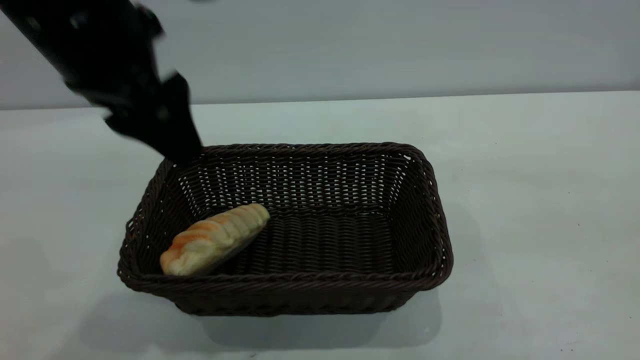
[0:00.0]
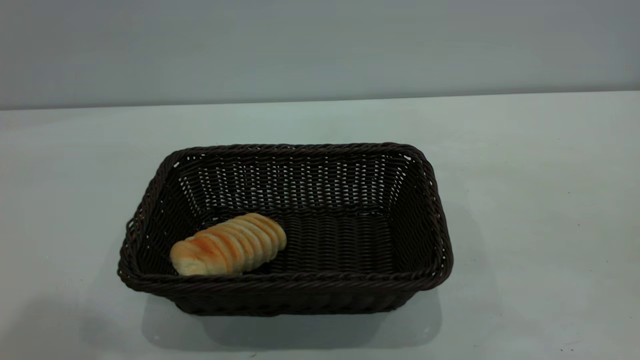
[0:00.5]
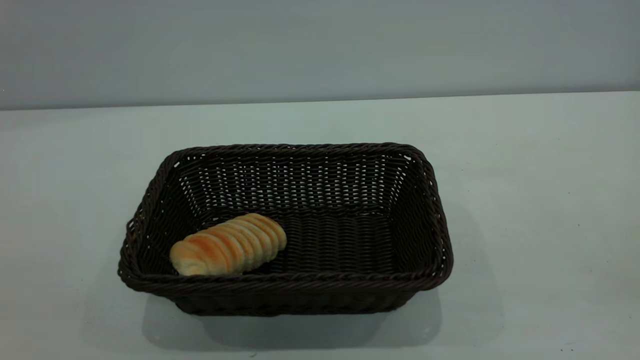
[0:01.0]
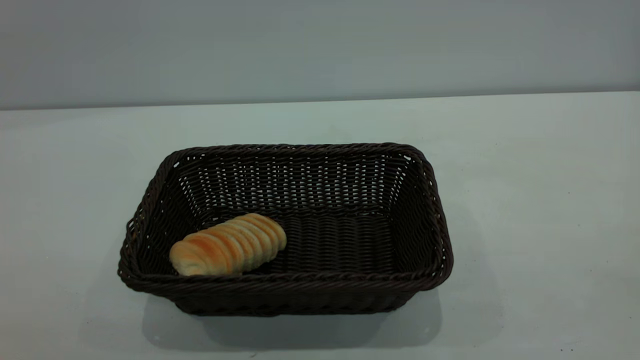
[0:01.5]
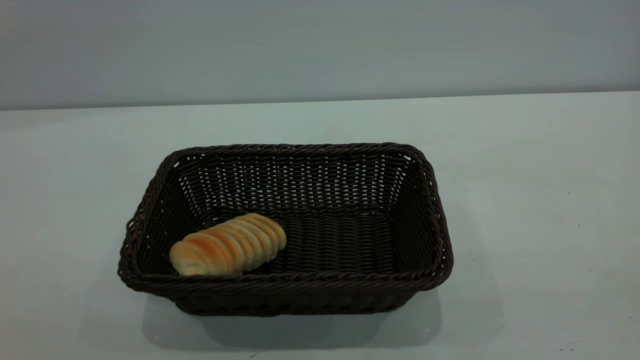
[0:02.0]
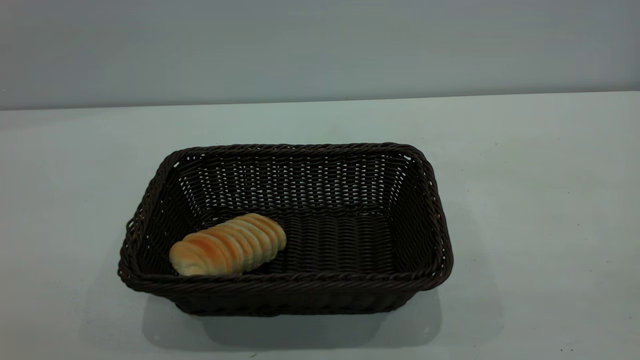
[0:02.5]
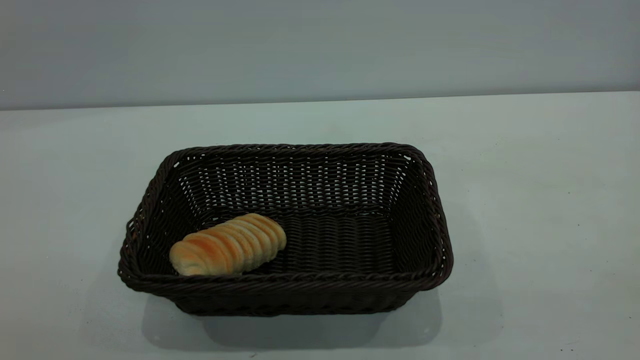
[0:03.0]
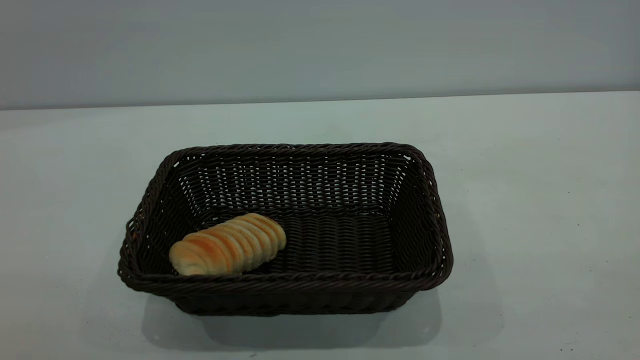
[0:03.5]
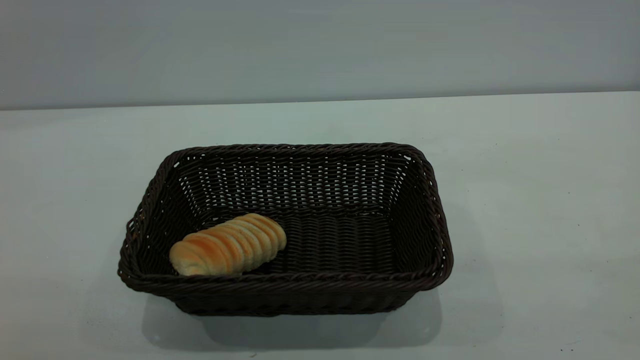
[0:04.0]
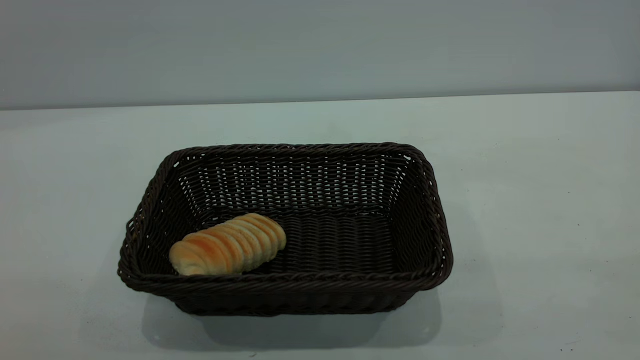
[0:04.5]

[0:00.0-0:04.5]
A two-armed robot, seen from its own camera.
Task of the whole recording: One hand grasps the black basket and places it in the middle of the table, while the other hand picks up the long bread and puts it into the black basket.
0:00.0 to 0:02.0: The right gripper shifts approximately 15 cm backward and to the right, while the left gripper travels backward and to the left by about 30 cm.

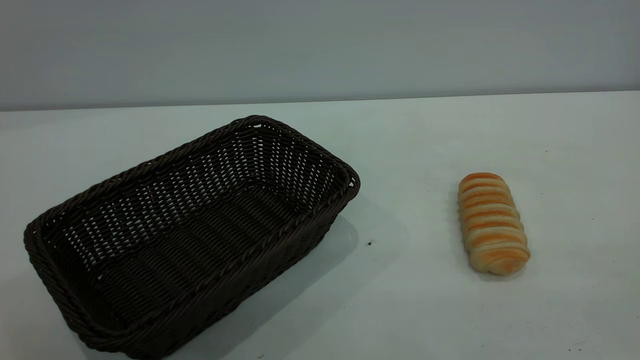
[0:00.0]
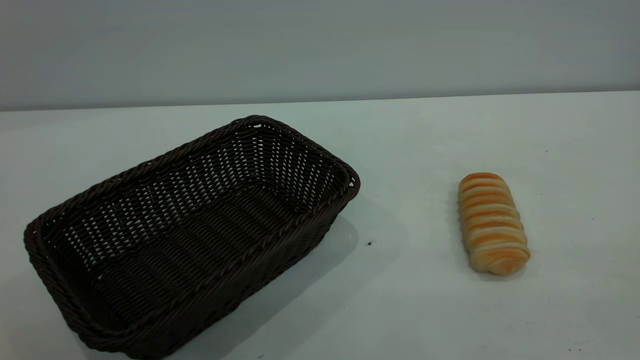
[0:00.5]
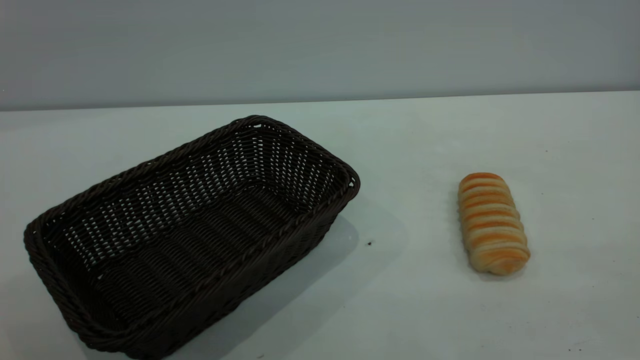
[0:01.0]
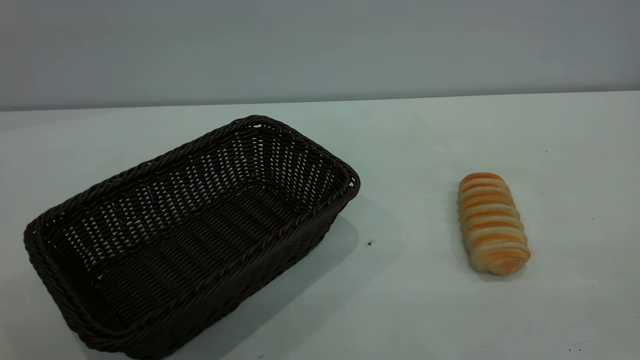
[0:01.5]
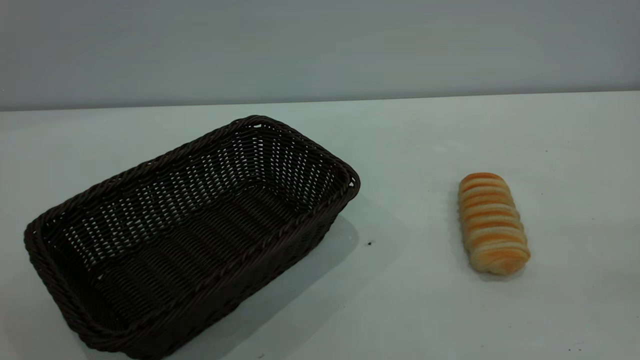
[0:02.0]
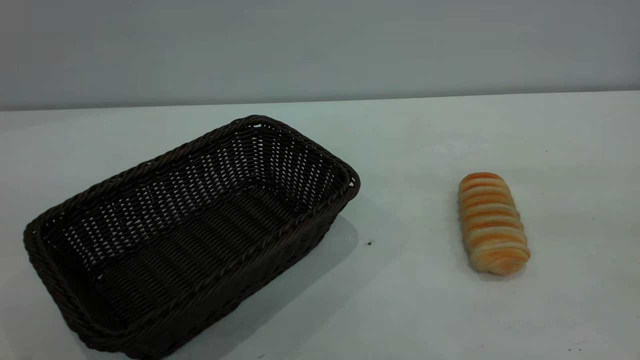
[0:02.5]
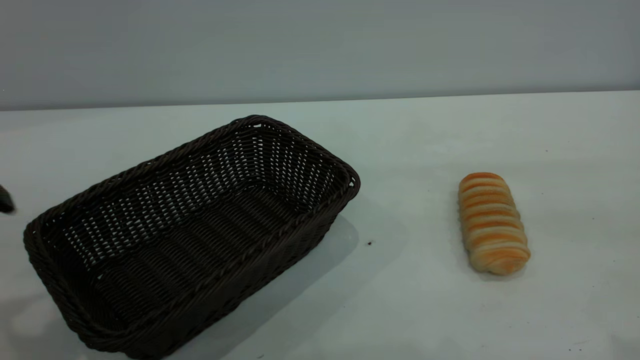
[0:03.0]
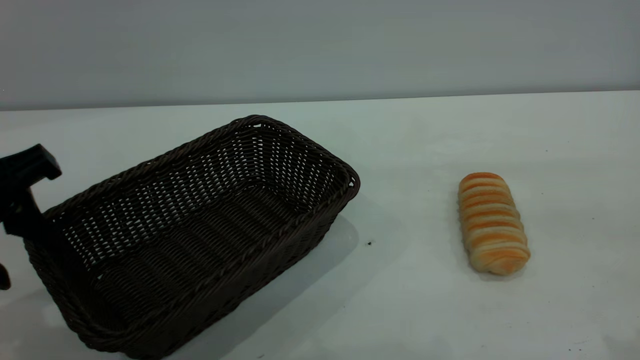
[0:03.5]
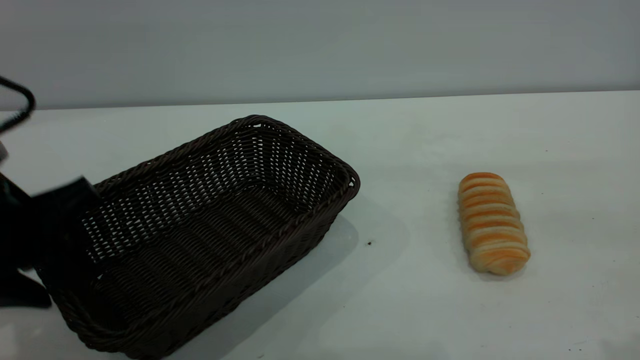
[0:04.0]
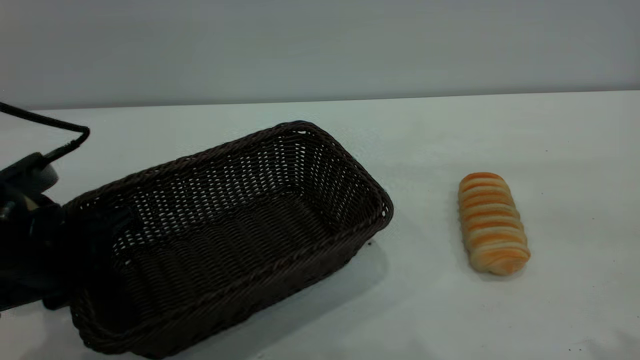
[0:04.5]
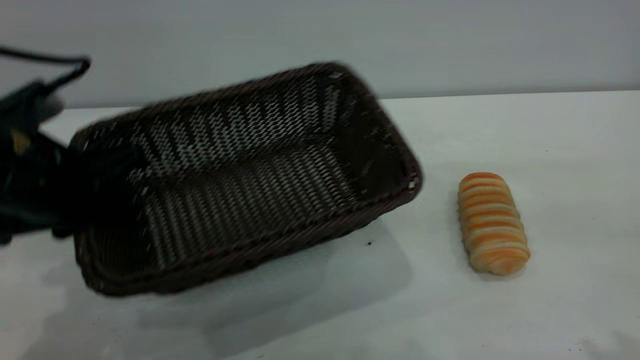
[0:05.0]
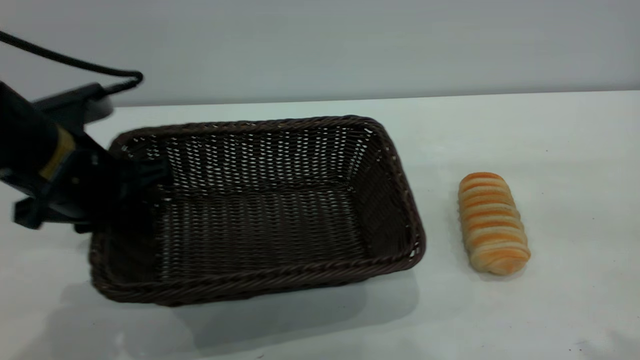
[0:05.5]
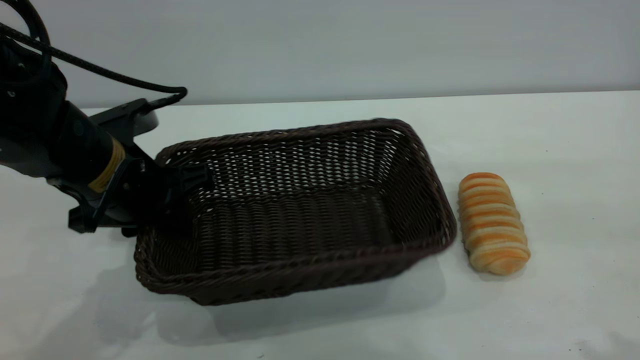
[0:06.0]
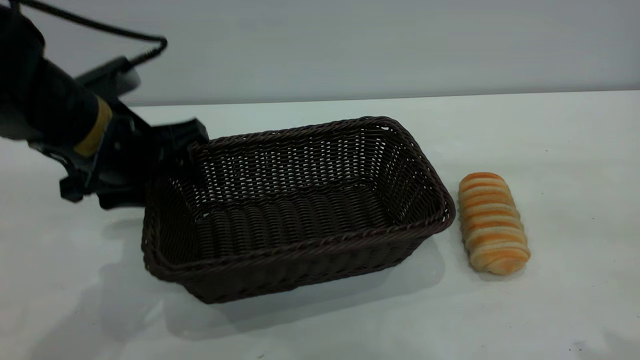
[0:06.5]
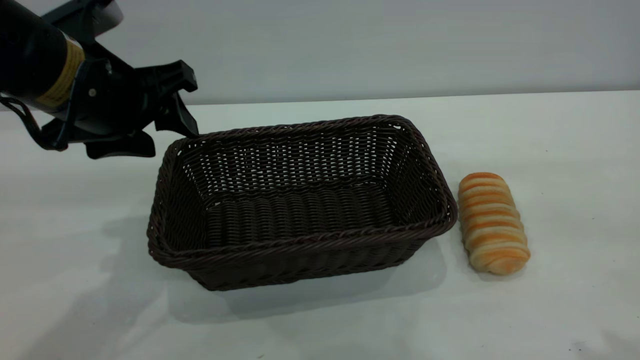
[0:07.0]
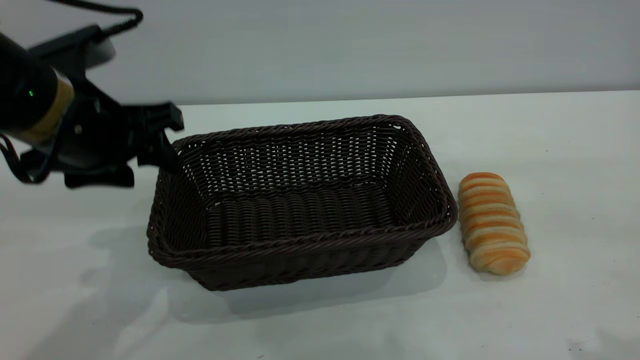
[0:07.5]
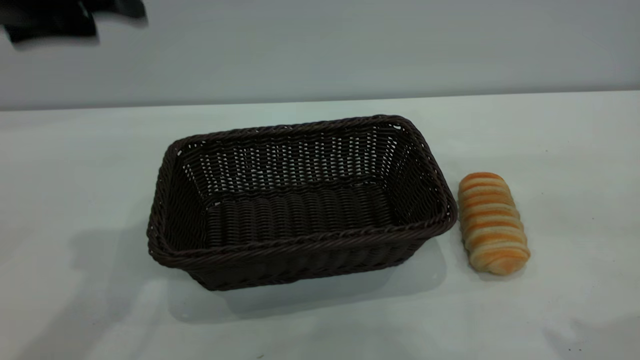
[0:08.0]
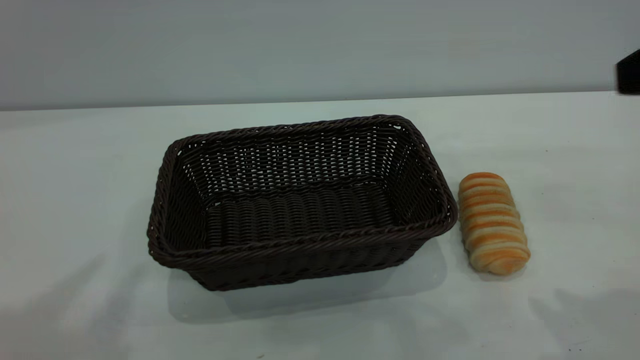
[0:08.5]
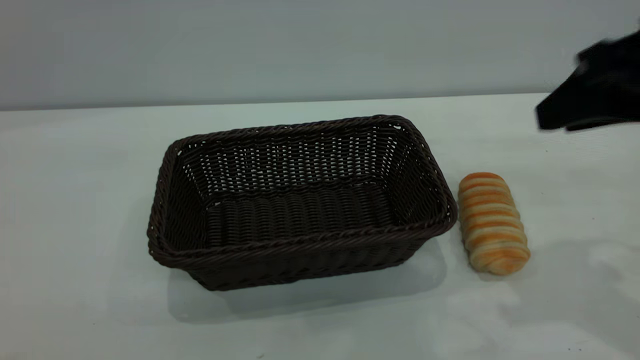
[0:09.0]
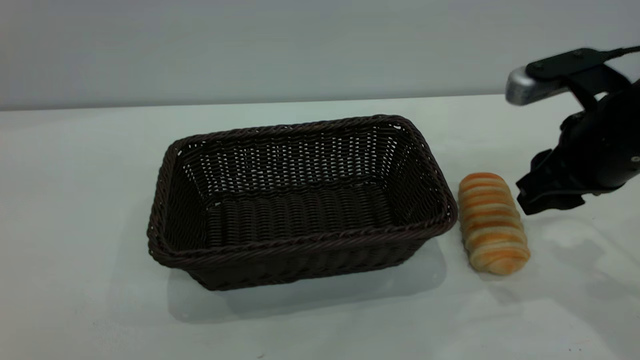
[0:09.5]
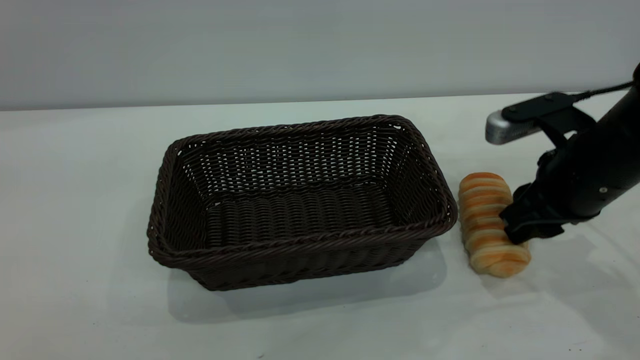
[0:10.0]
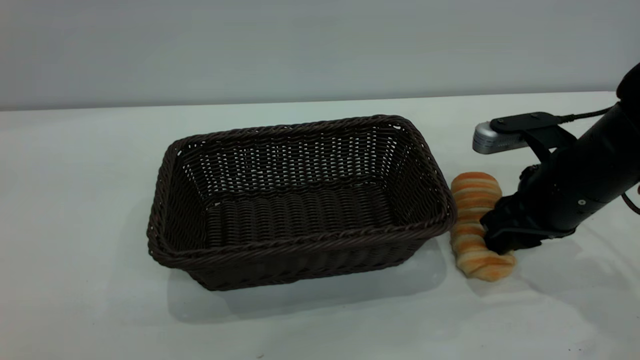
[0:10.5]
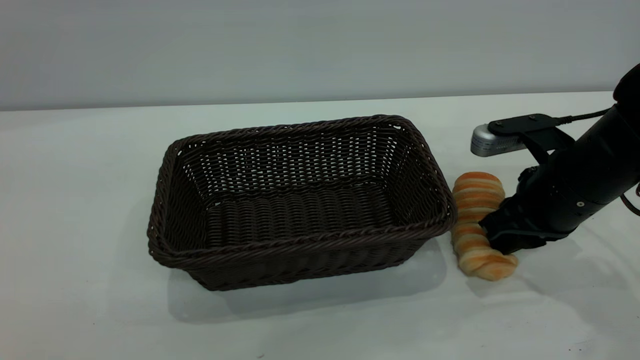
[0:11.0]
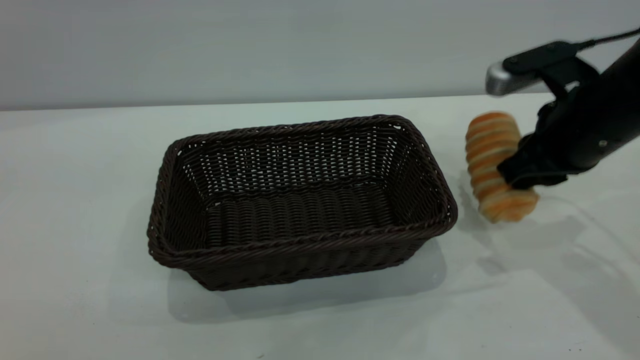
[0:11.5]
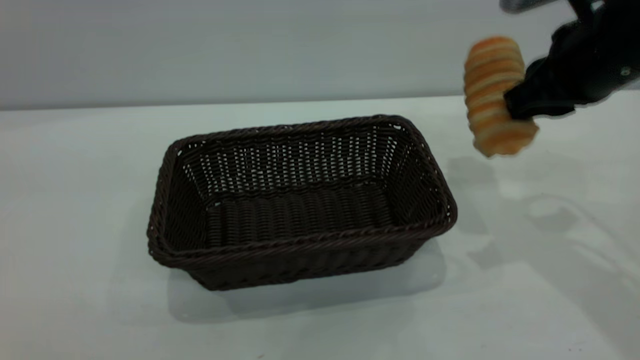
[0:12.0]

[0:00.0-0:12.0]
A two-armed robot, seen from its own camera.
Task of the whole recording: One hand grasps the black basket and places it in the middle of the table, while the other hand picks up the long bread and puts it into the black basket.
Step, 0:00.0 to 0:07.5: Move the basket to the center of view.
0:02.0 to 0:04.0: The left gripper is displaced forward and downward by about 30 cm.
0:04.0 to 0:06.0: The left gripper shifts some 10 cm forward and to the right, and closes its fingers.
0:06.0 to 0:08.0: The left gripper shifts roughly 20 cm upward, and opens its fingers.
0:08.0 to 0:10.0: The left gripper moves backward and upward, some 30 cm. The right gripper goes roughly 25 cm downward and forward.
0:10.0 to 0:12.0: The right gripper goes about 10 cm upward, and closes its fingers.

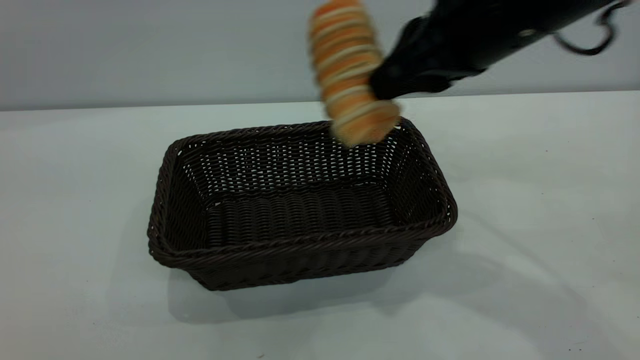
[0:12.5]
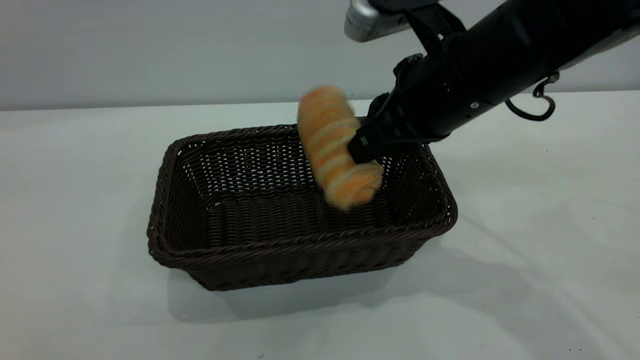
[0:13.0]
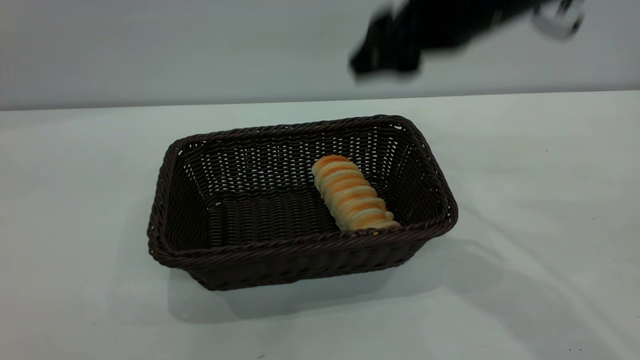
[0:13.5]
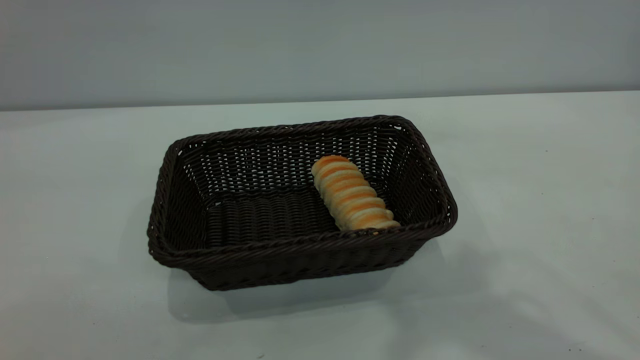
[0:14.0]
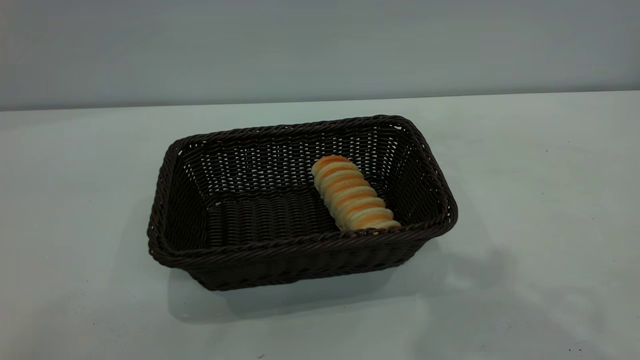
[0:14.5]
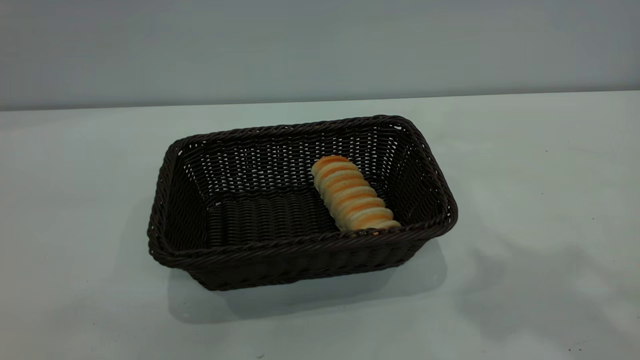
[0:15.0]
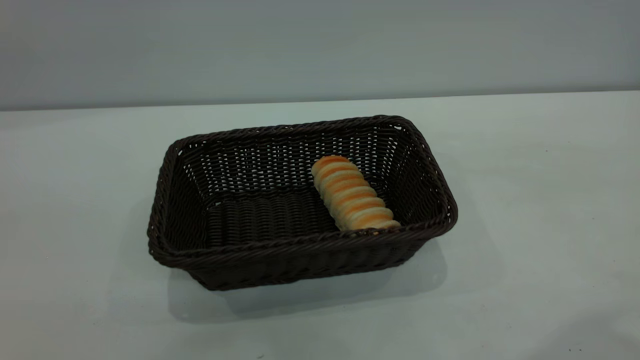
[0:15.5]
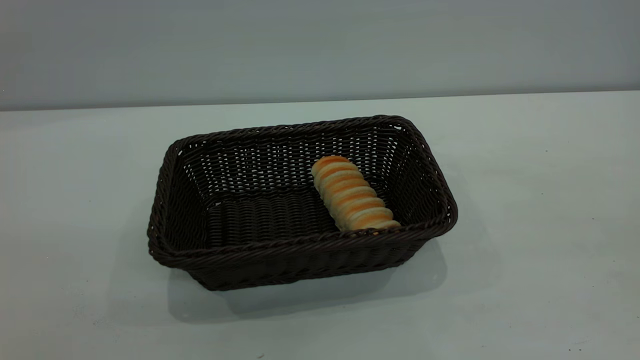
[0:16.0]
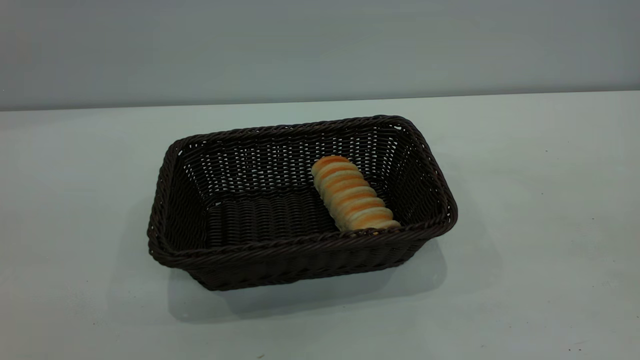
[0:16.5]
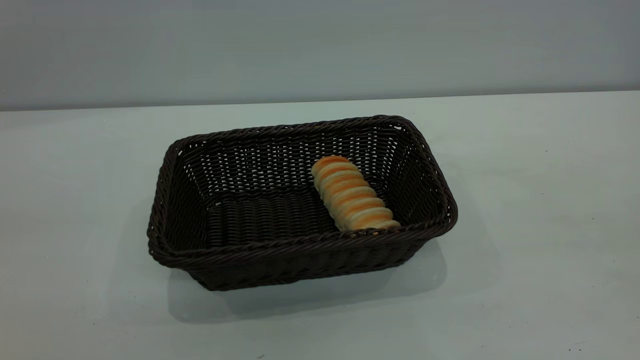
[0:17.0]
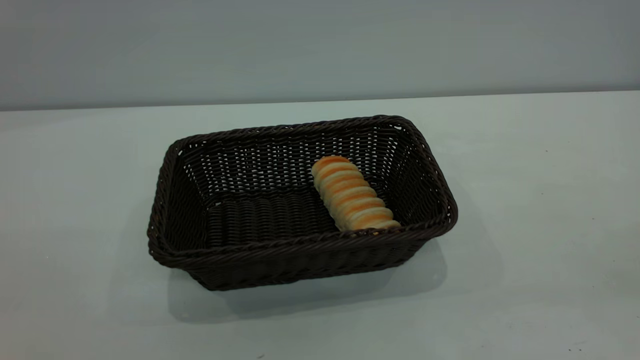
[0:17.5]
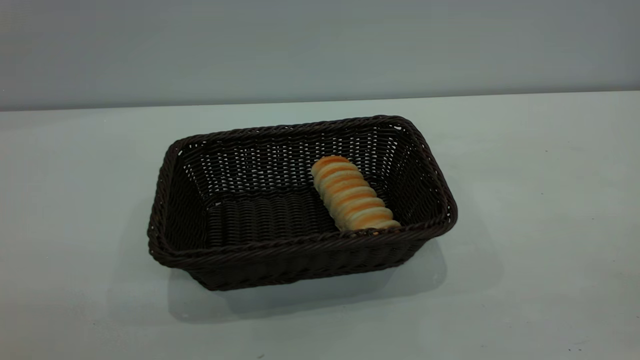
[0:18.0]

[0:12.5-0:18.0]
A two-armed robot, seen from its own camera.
Task of the whole recording: One hand grasps the black basket and places it in the middle of the table, while the other hand picks up the long bread and puts it into the black basket.
Step, 0:12.5 to 0:13.5: place the bread into the basket.
0:12.5 to 0:14.5: The right gripper heads upward and backward, covering about 20 cm, and opens.
